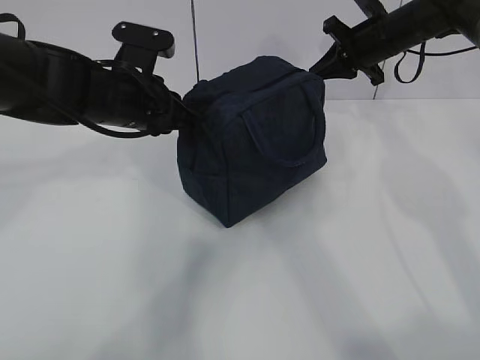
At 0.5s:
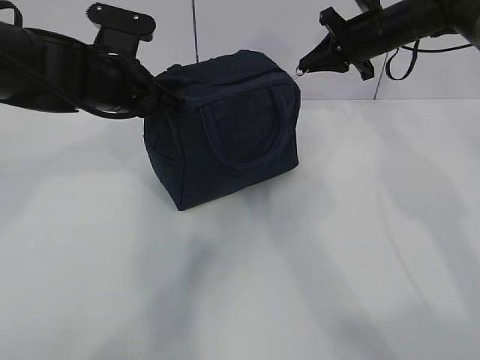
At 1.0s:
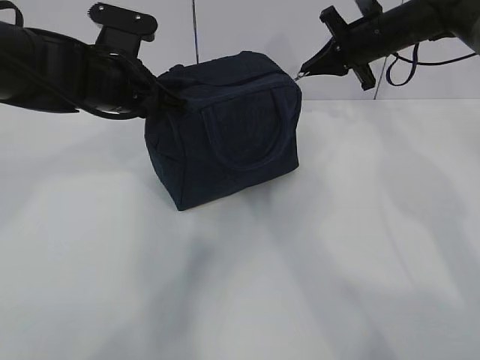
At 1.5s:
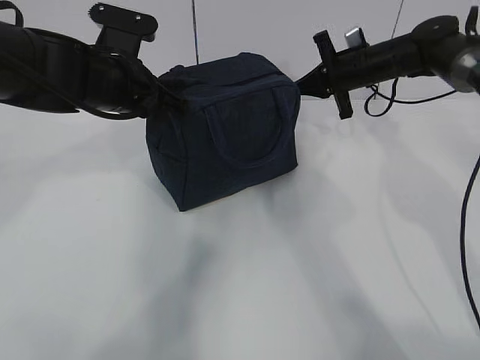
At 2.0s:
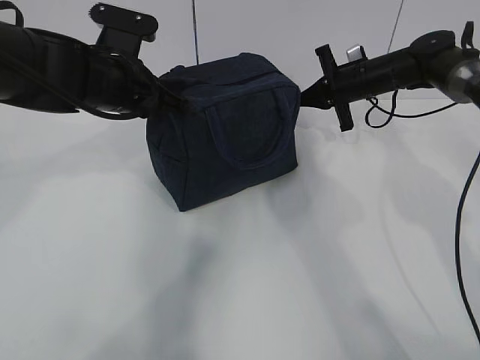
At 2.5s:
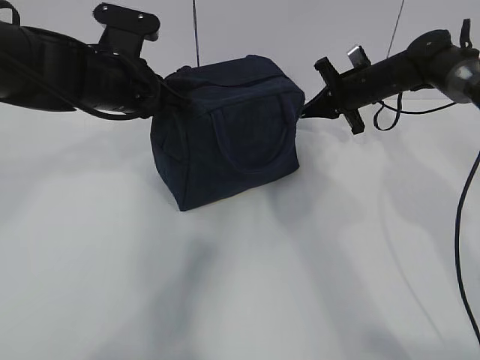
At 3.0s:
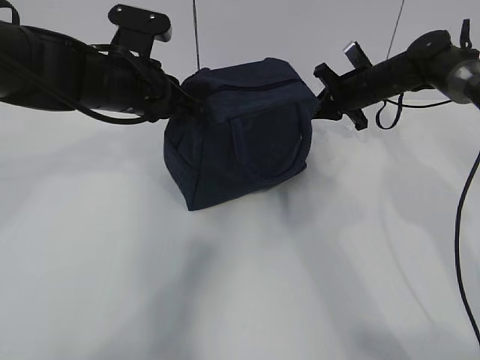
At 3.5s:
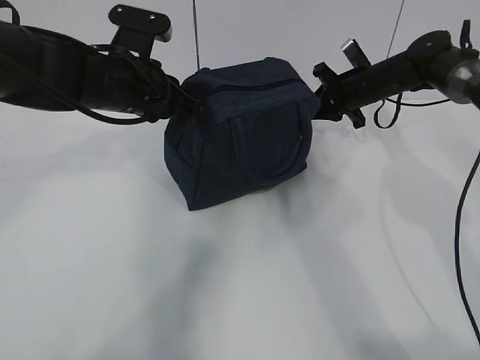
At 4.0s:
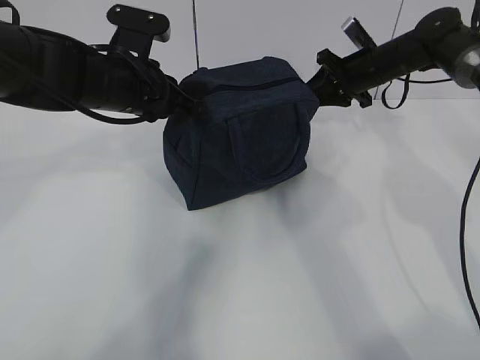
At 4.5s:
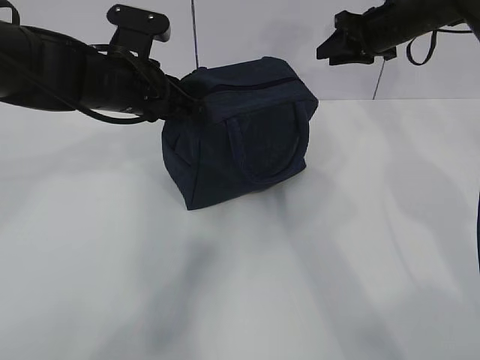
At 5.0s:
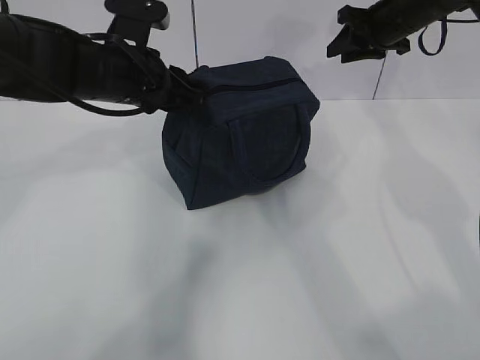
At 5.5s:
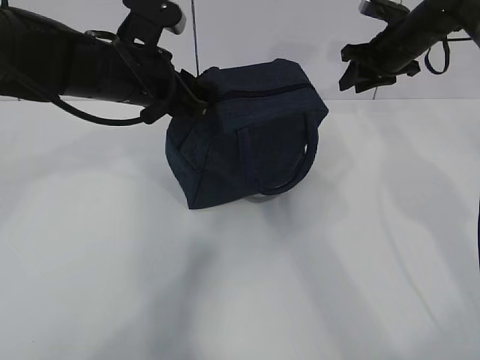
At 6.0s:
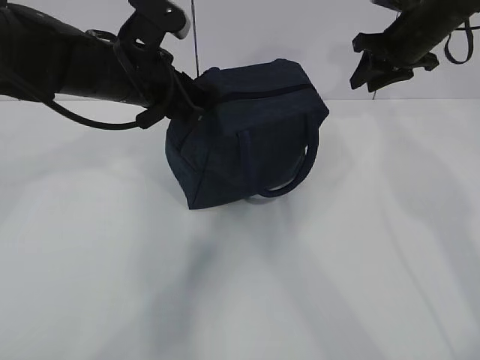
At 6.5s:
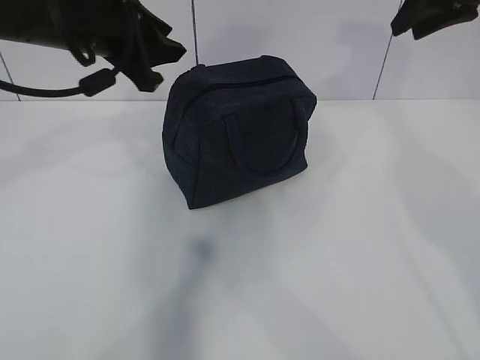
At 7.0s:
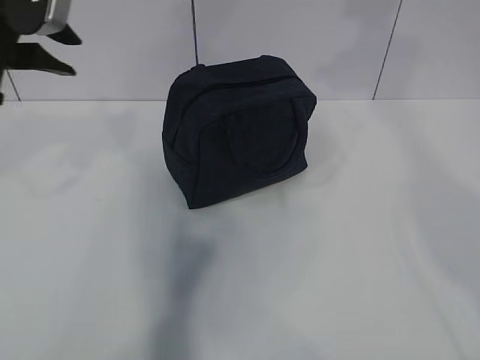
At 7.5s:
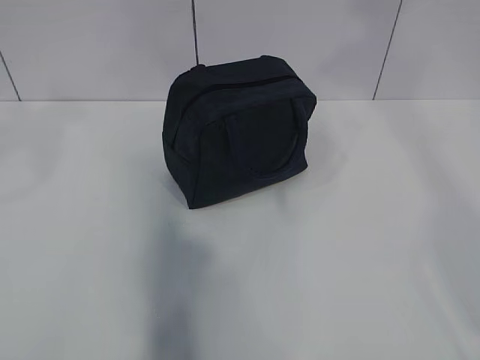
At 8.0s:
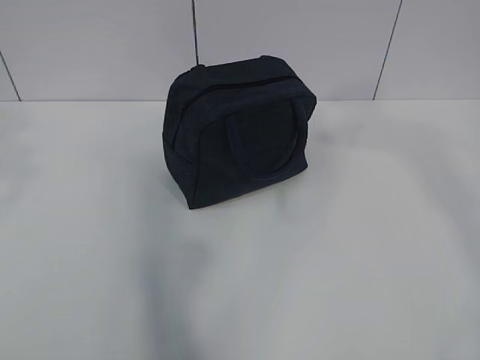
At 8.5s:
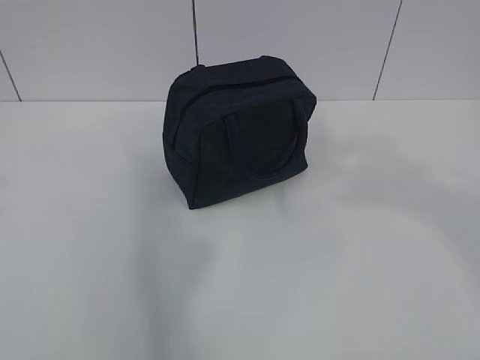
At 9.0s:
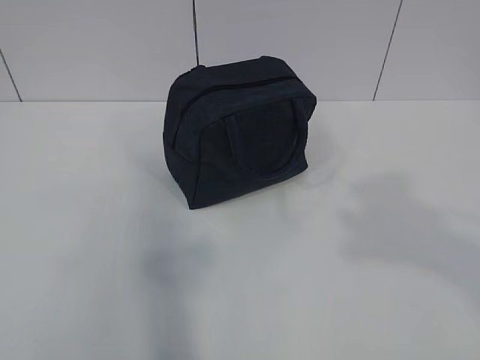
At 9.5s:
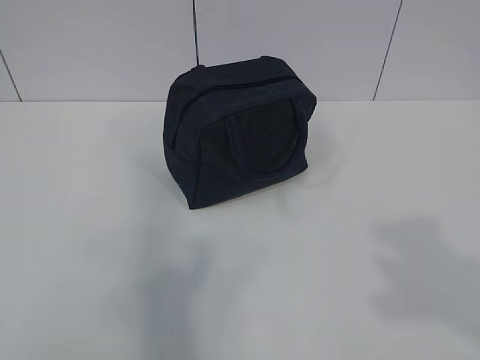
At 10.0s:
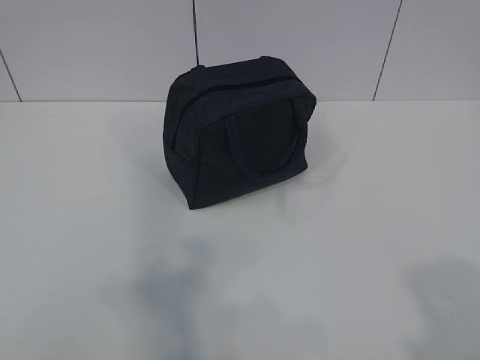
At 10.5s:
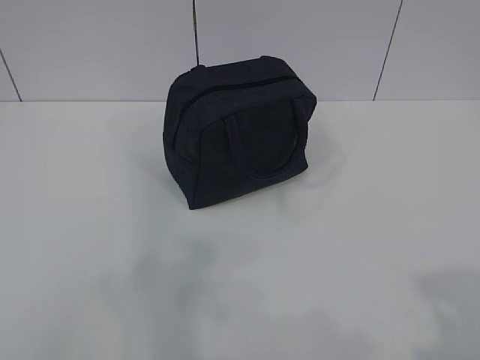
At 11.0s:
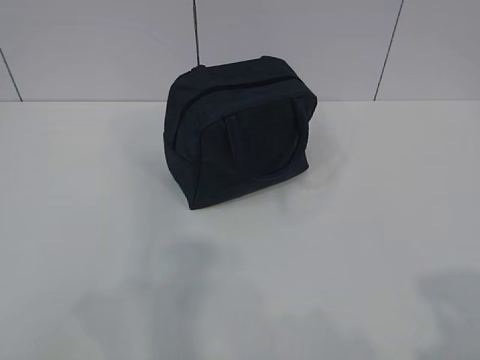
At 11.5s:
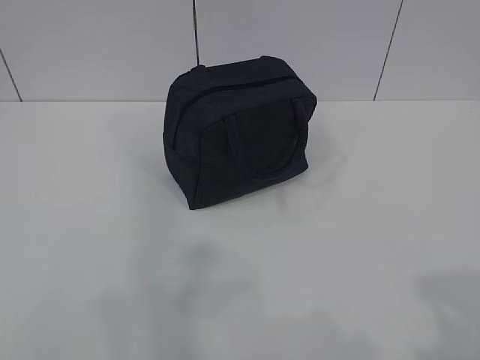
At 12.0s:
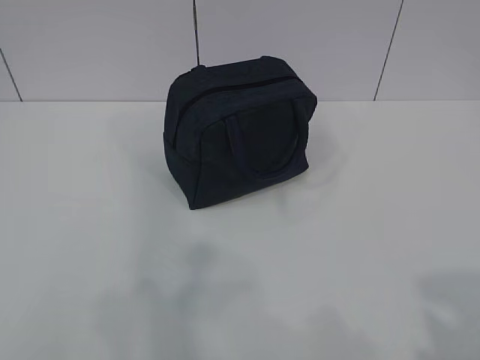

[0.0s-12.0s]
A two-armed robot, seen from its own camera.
0.0s to 2.0s: The right gripper moves downward, about 5 cm.
2.0s to 4.0s: The right gripper opens its fingers.
4.0s to 6.0s: The right gripper is displaced upward by about 5 cm; the left gripper opens its fingers.
6.0s to 8.0s: The left gripper heads backward, upward and to the left, covering about 35 cm. Meanwhile the right gripper goes some 40 cm backward and upward.
8.0s to 10.0s: The right gripper is displaced backward and downward by roughly 25 cm.

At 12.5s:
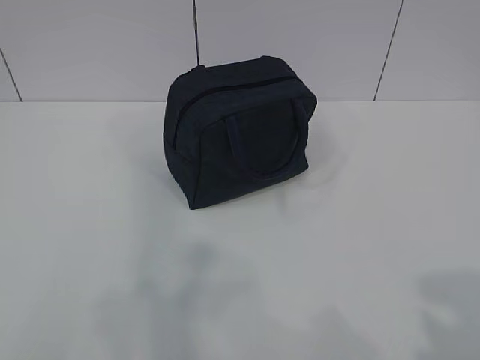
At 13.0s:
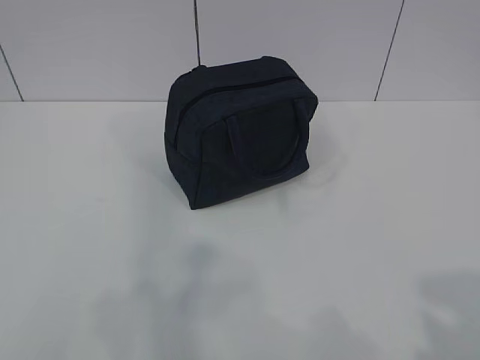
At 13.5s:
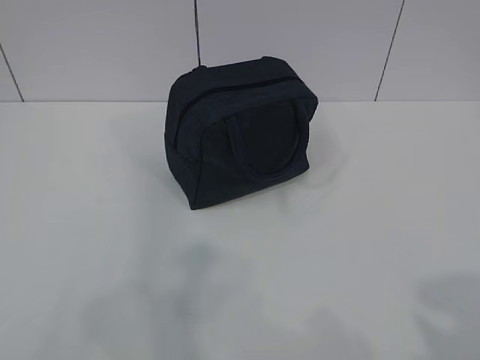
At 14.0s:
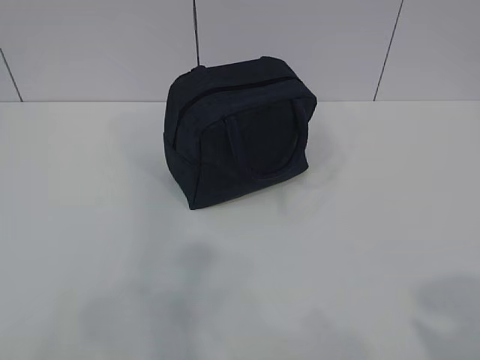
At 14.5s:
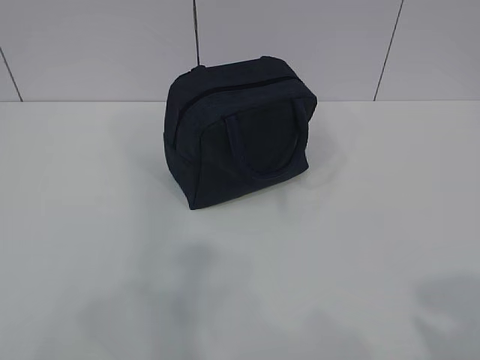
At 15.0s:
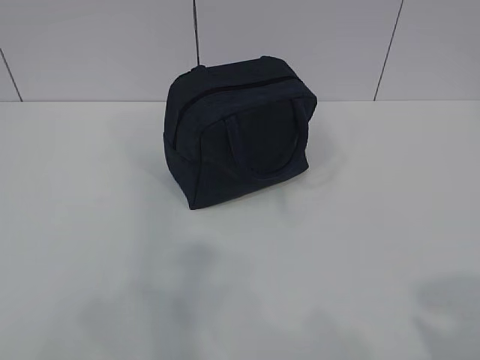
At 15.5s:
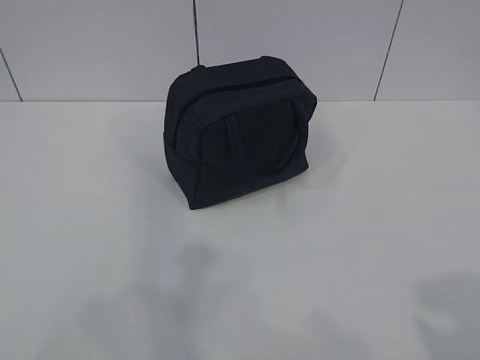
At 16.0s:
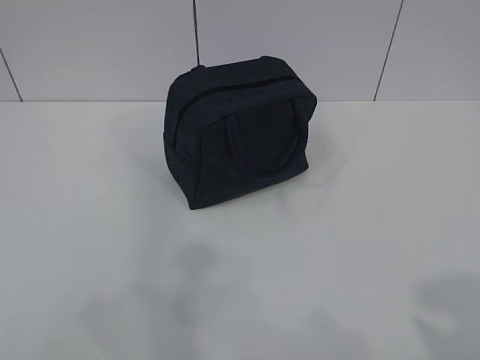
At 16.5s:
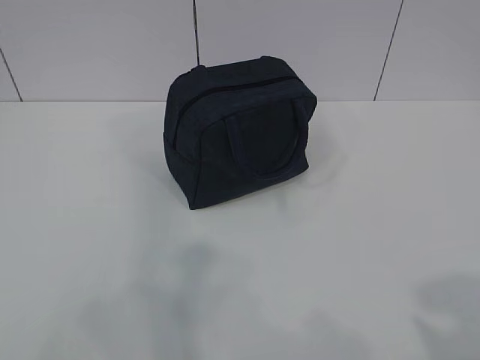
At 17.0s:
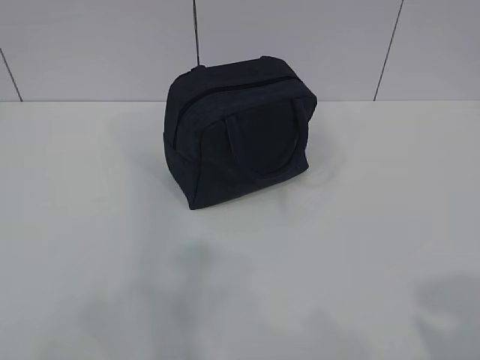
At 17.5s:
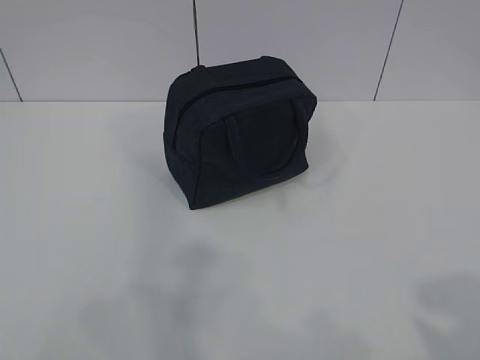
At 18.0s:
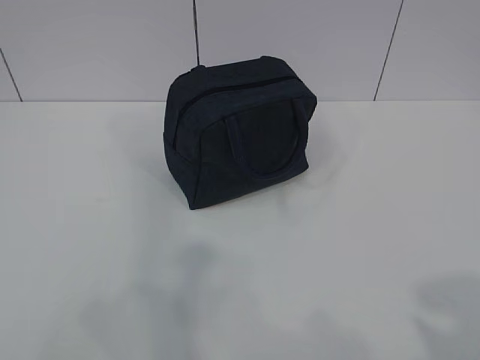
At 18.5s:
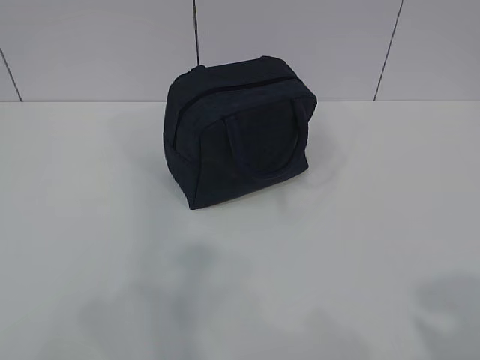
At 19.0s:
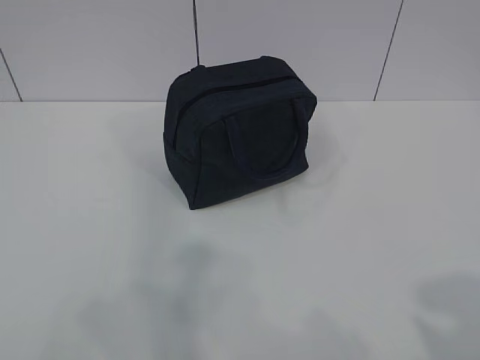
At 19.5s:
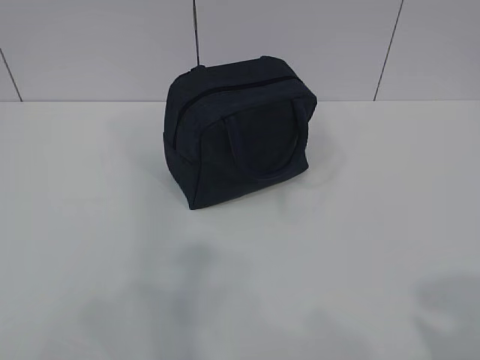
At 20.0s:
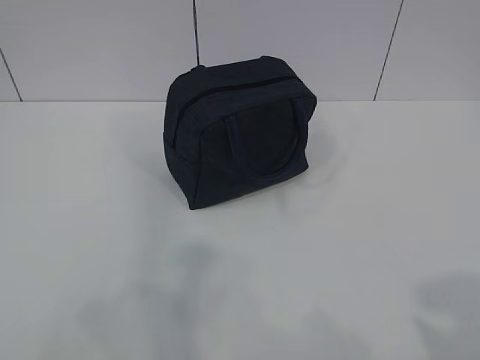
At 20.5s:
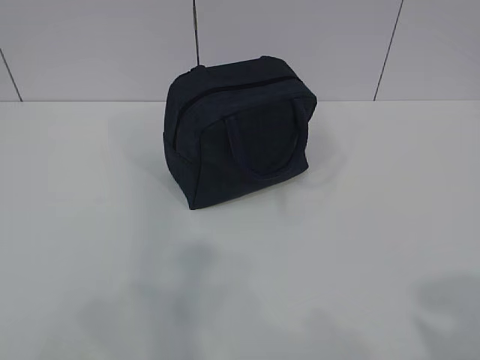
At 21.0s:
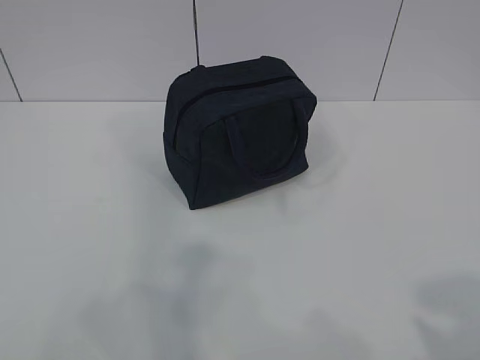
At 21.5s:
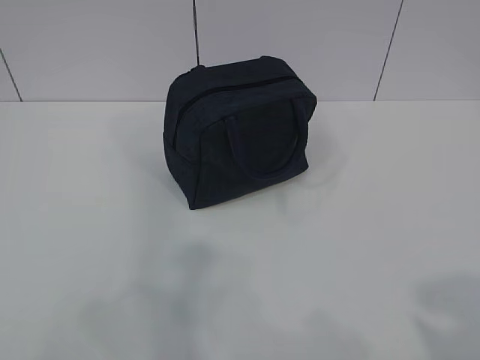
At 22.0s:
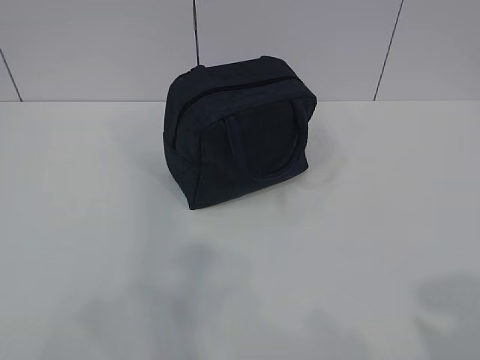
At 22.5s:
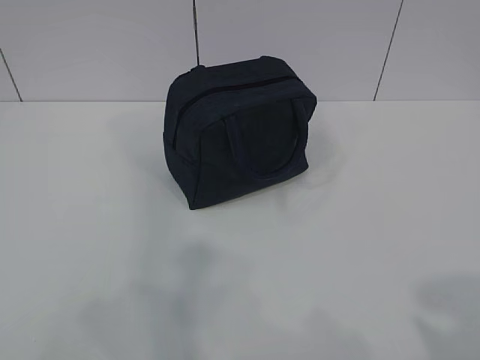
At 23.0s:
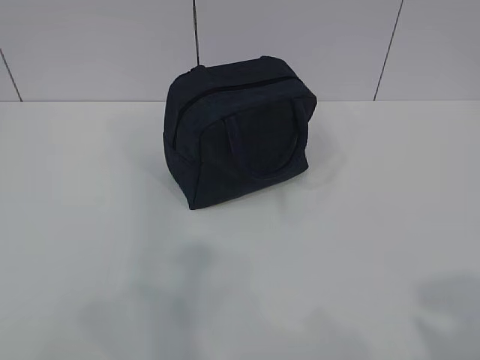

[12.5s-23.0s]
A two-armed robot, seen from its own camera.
14.5s to 23.0s: Both grippers stay about where they are.
